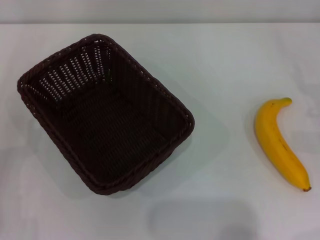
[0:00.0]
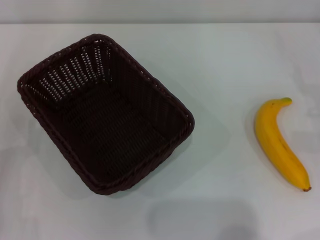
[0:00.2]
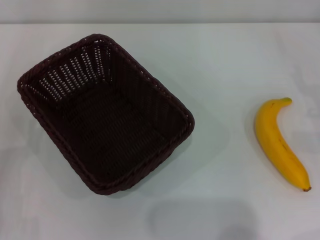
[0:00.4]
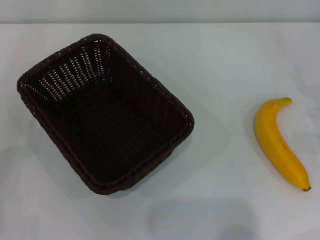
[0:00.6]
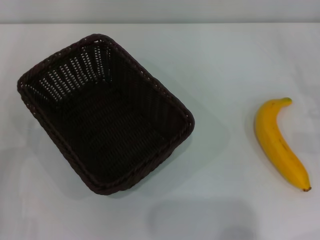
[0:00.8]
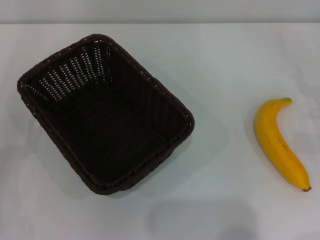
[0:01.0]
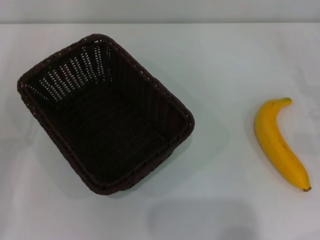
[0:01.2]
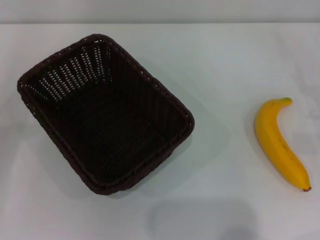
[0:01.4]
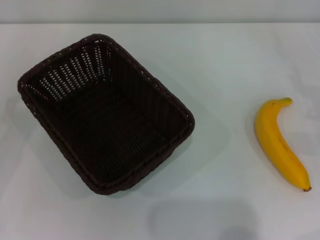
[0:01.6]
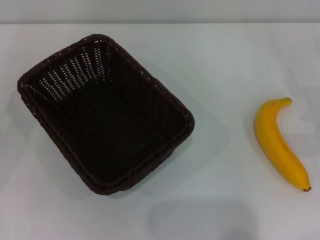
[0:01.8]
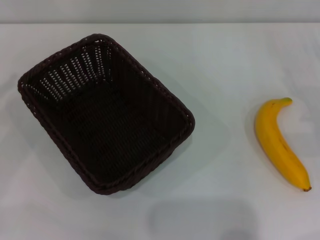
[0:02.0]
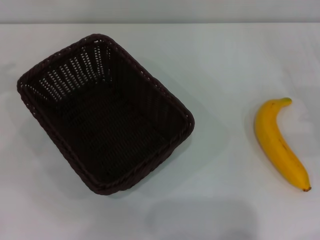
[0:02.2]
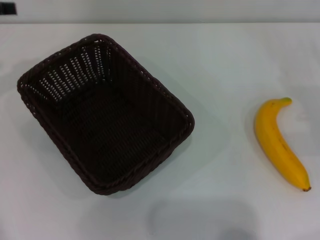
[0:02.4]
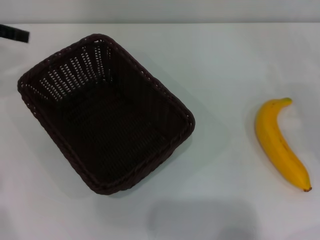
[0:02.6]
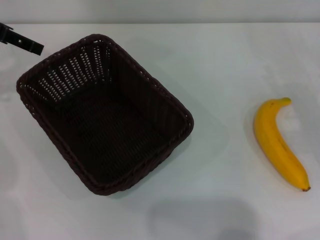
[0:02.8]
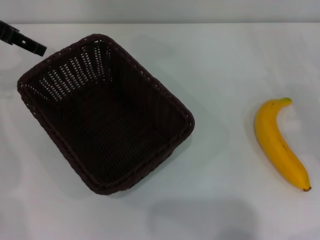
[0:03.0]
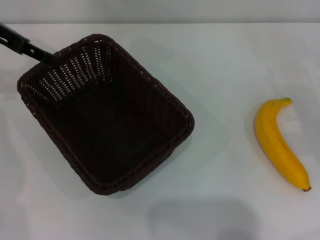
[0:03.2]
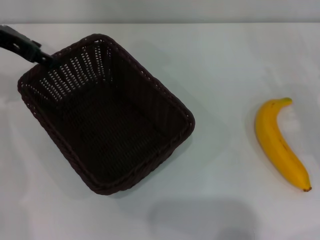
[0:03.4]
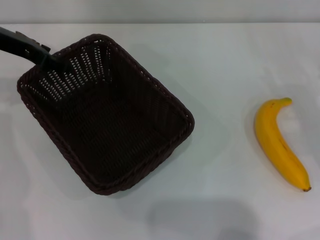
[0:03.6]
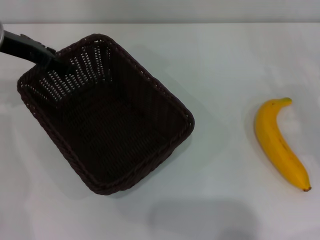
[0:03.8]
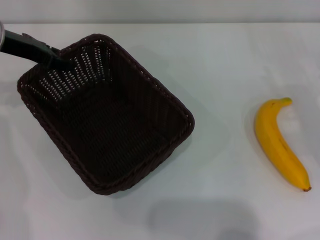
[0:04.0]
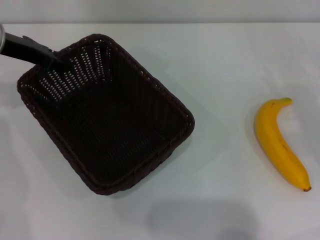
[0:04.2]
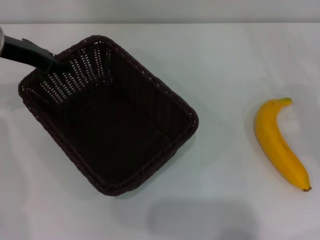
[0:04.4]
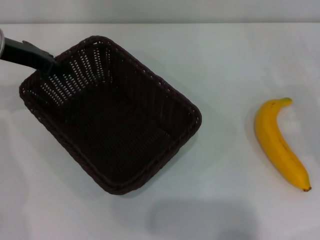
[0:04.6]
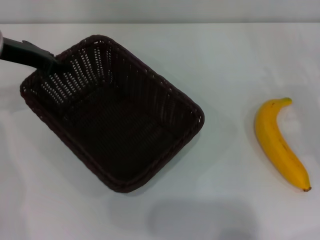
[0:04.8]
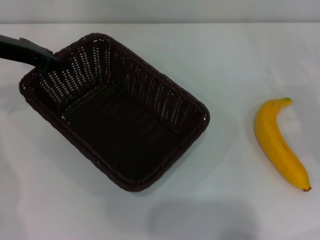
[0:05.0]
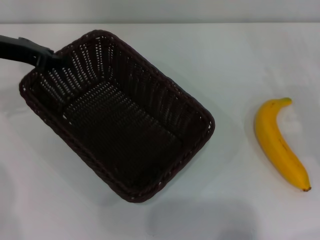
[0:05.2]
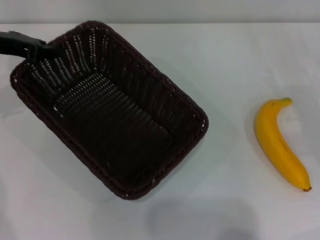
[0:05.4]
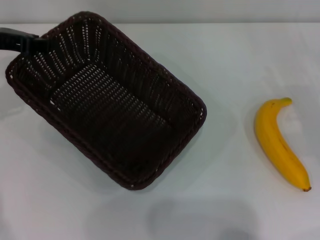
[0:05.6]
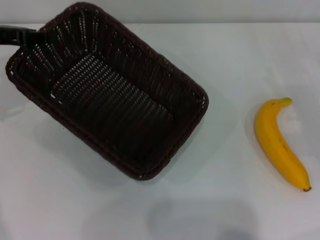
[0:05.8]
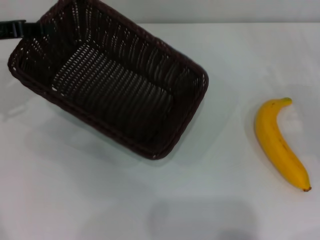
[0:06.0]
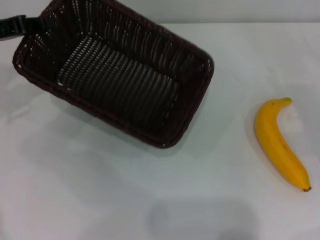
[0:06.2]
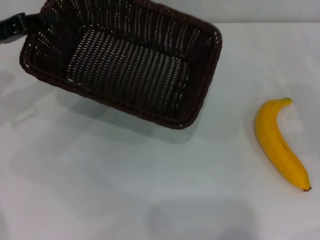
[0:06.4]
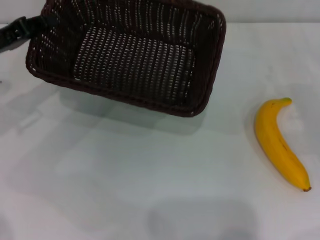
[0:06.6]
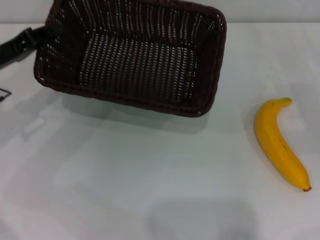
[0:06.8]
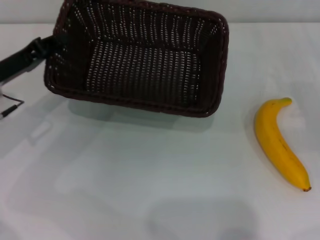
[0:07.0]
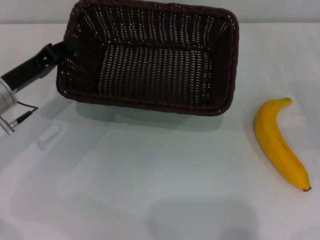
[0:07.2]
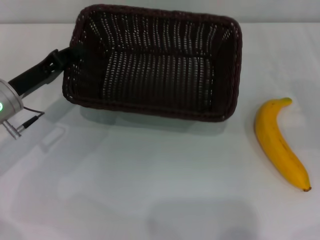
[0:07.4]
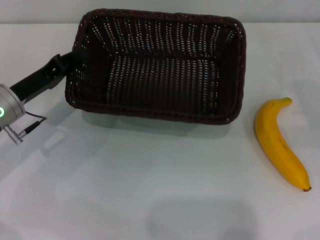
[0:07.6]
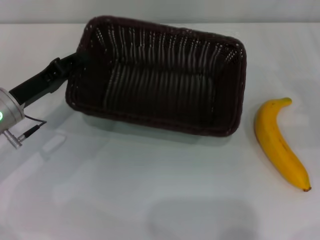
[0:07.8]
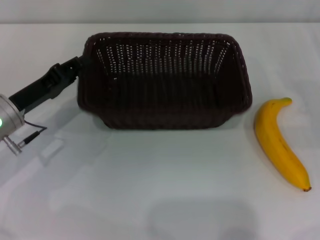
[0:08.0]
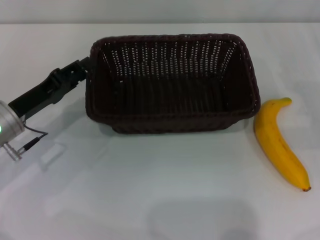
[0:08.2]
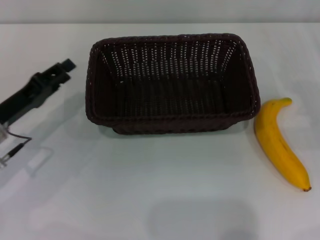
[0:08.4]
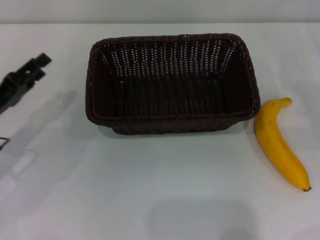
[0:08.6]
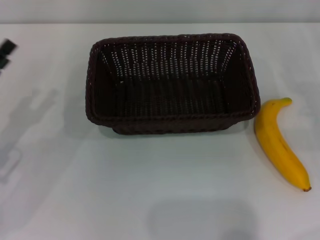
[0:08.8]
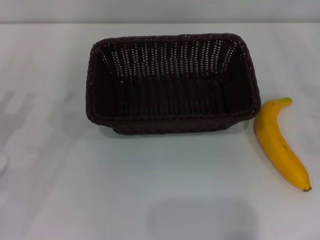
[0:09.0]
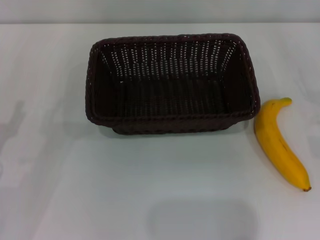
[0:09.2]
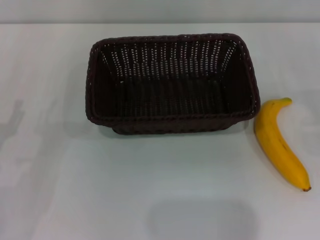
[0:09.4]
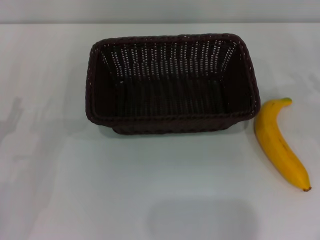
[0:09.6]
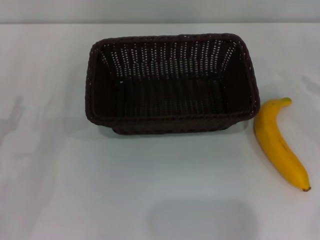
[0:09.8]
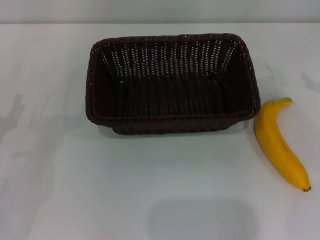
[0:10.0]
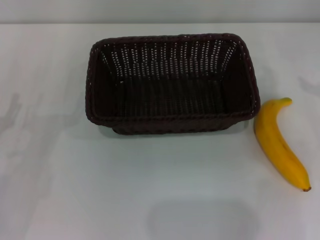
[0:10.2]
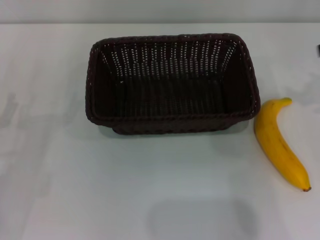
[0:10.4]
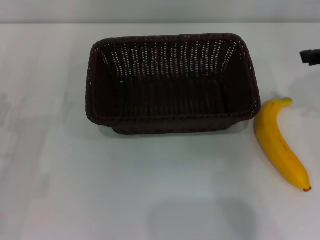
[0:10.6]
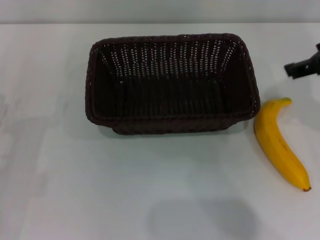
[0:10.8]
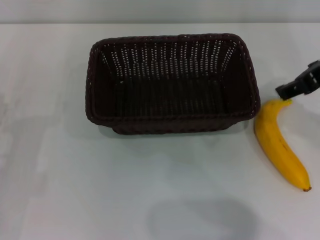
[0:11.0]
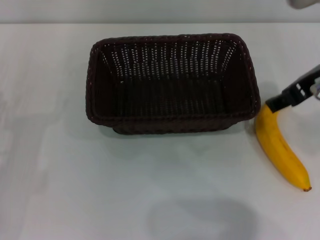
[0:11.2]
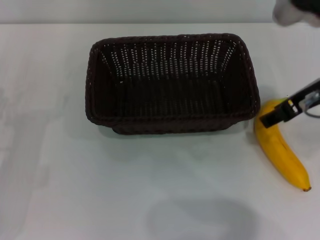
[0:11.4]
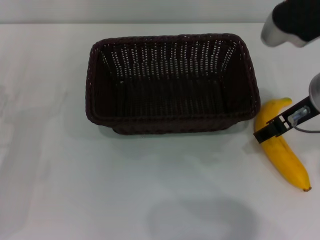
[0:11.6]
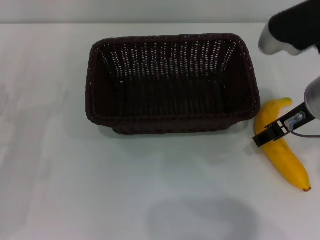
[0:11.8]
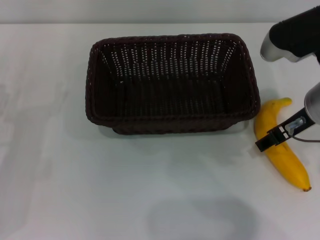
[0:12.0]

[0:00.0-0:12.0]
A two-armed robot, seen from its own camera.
Step, 0:00.0 to 0:05.8: Pick up the dark basket with the left gripper.
Step, 0:06.0 to 0:08.2: Place the dark basket in the center of view with the left gripper.
0:01.6 to 0:03.0: The left gripper moves forward, upward and to the right, some 25 cm.
0:03.0 to 0:04.4: The left gripper shifts some 10 cm downward, and closes its fingers.
0:04.4 to 0:06.0: The left gripper changes place by about 5 cm.
0:06.0 to 0:07.6: The left gripper moves downward, to the right and backward, about 15 cm.
0:07.6 to 0:09.0: The left gripper is displaced backward and to the left by some 10 cm, and opens up.
0:10.4 to 0:12.0: The right gripper shifts approximately 15 cm to the left and downward.

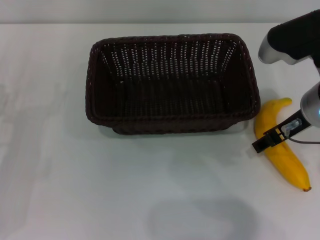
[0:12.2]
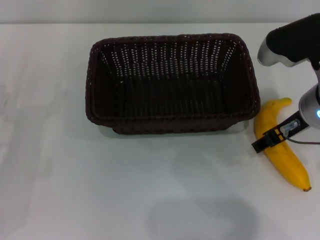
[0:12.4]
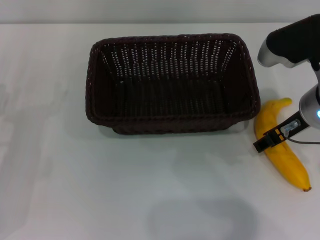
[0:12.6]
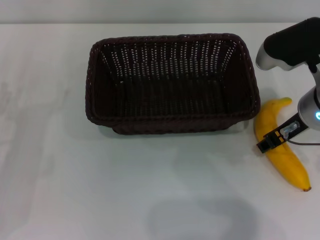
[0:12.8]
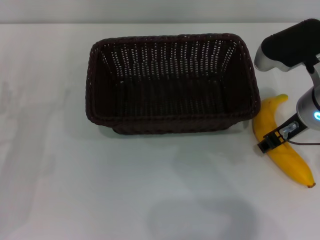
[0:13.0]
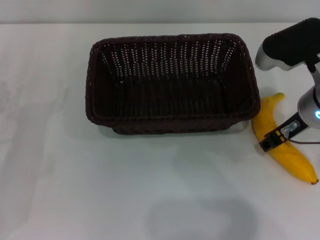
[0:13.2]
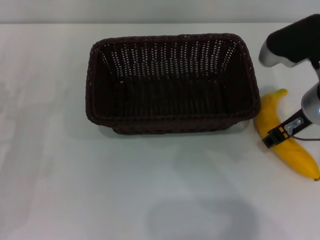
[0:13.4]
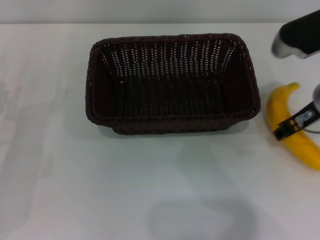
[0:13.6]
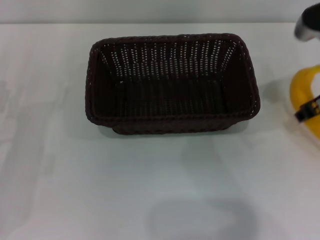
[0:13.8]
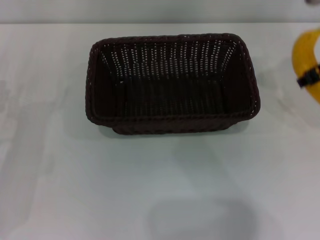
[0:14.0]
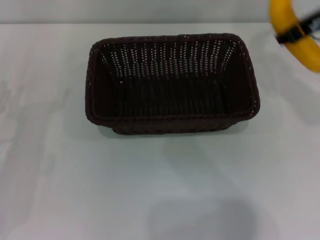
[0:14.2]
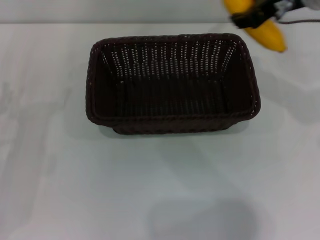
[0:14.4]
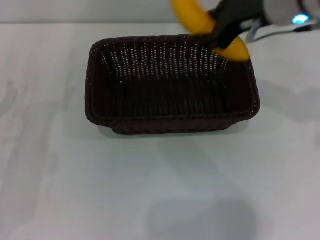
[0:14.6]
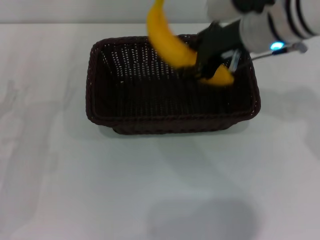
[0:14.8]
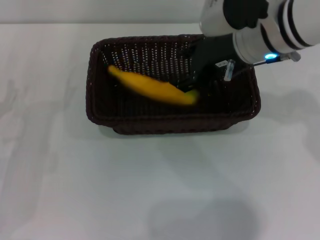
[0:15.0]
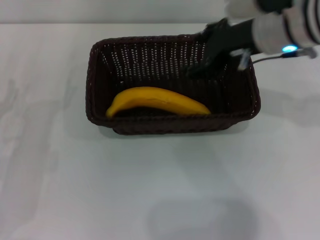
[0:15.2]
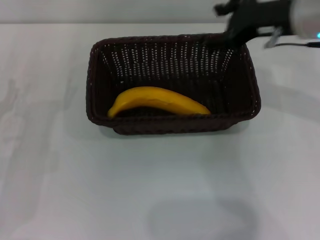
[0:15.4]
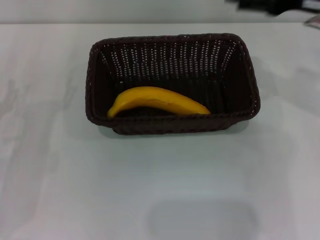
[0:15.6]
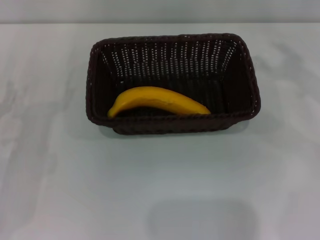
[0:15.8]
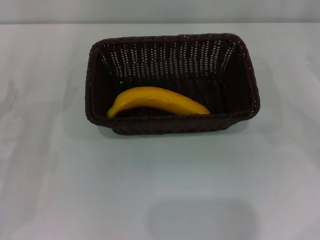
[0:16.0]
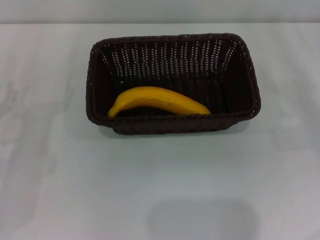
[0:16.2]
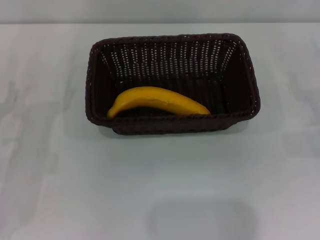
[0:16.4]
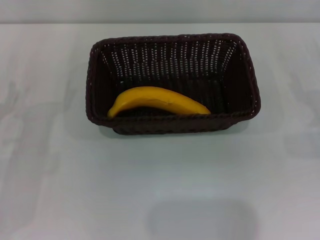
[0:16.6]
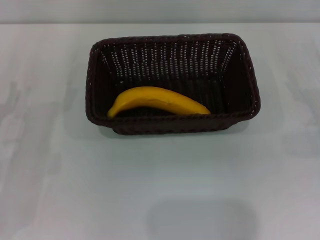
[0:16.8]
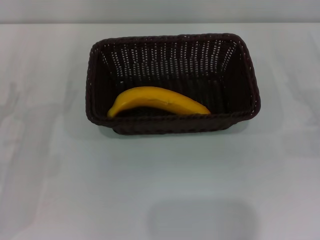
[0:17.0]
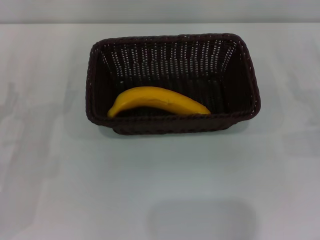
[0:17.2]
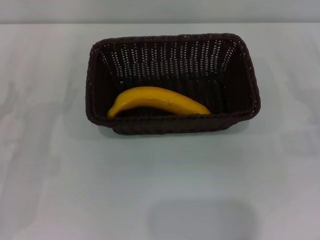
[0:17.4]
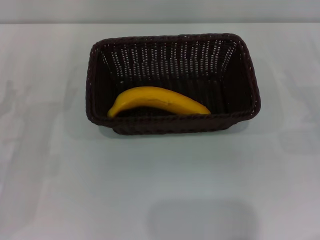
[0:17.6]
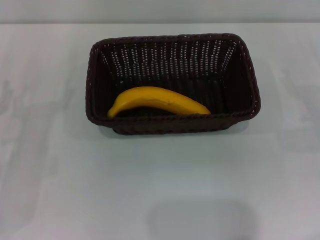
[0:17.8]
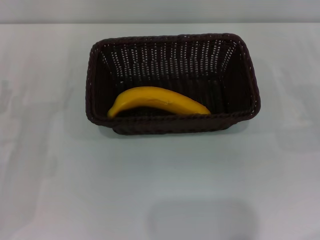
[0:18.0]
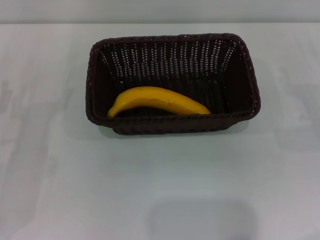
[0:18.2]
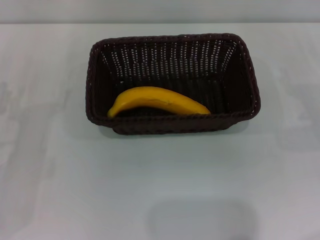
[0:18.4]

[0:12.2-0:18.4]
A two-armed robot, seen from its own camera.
Step, 0:14.2 to 0:15.2: Place the banana into the dark basket with the right gripper.
0:12.2 to 0:13.8: The right gripper moves roughly 5 cm, and closes.
0:13.8 to 0:15.4: The right gripper travels upward by roughly 5 cm, and opens its fingers.
0:15.4 to 0:16.8: The right gripper is displaced to the right and downward by approximately 25 cm.
0:16.8 to 0:18.4: The two grippers keep their place.

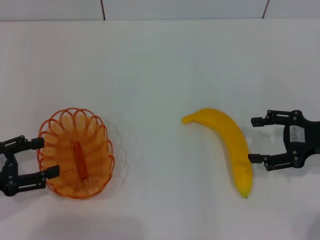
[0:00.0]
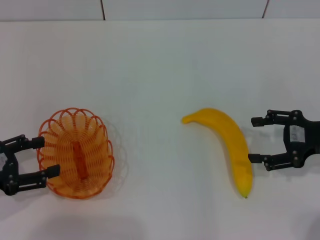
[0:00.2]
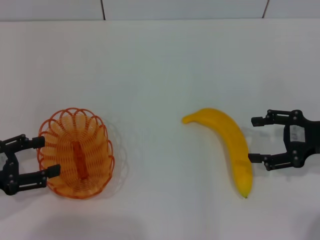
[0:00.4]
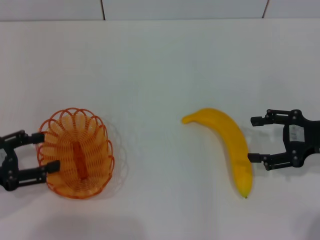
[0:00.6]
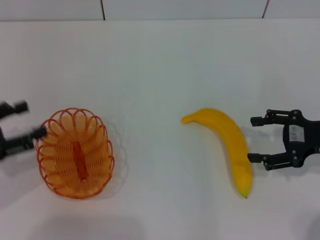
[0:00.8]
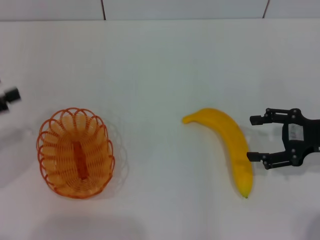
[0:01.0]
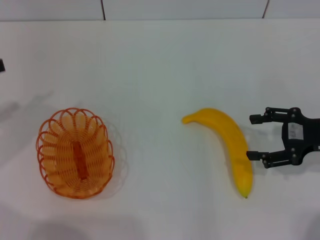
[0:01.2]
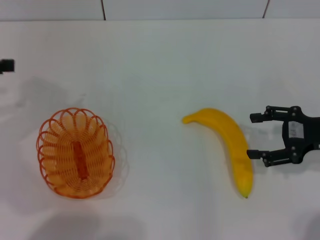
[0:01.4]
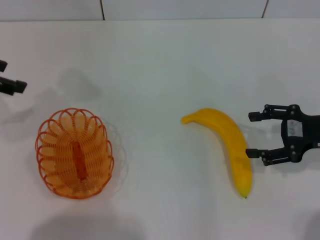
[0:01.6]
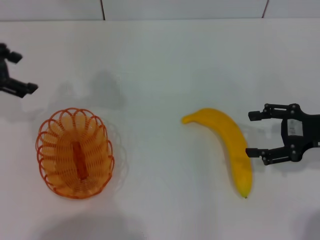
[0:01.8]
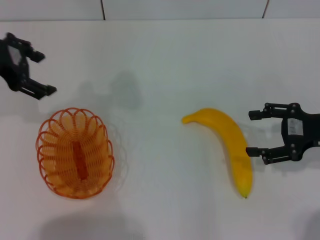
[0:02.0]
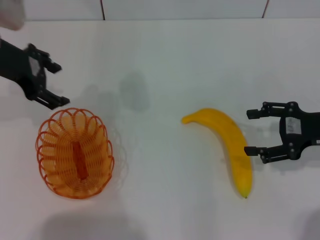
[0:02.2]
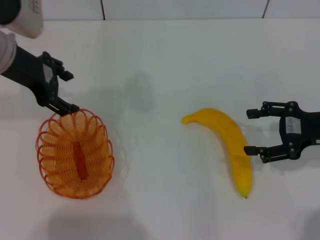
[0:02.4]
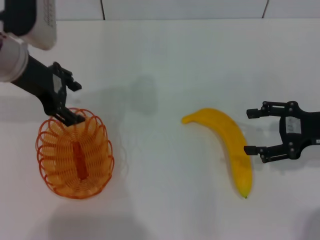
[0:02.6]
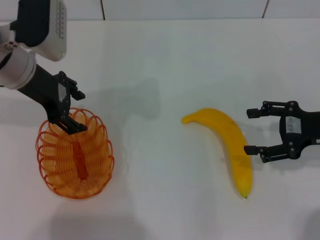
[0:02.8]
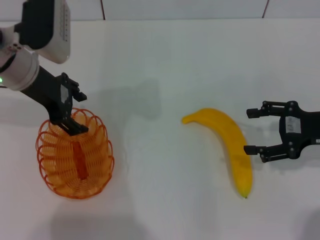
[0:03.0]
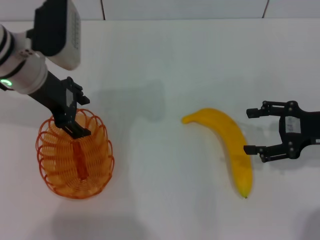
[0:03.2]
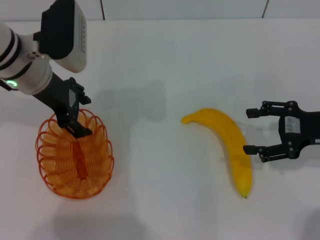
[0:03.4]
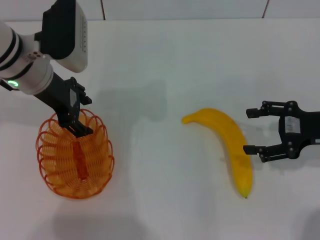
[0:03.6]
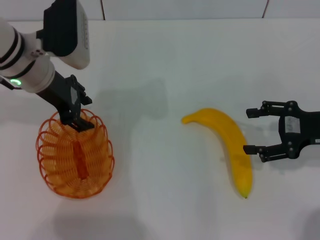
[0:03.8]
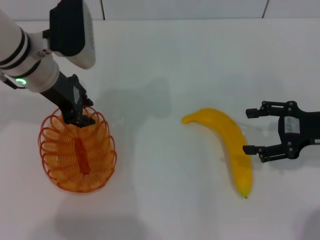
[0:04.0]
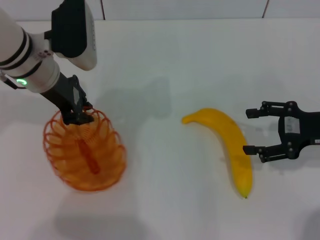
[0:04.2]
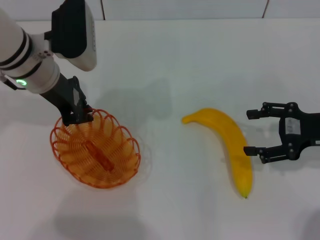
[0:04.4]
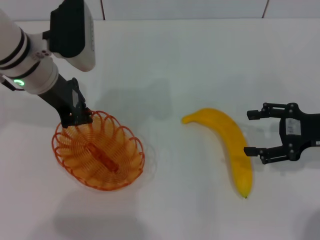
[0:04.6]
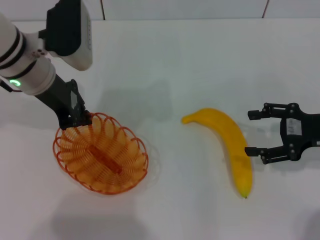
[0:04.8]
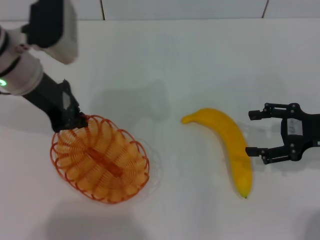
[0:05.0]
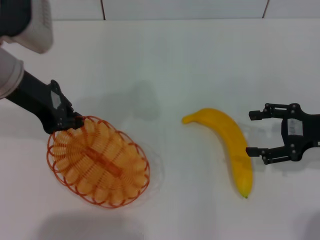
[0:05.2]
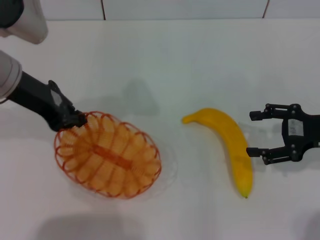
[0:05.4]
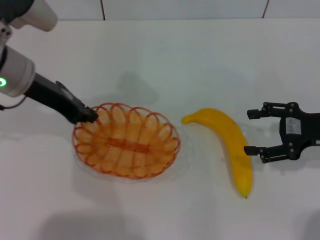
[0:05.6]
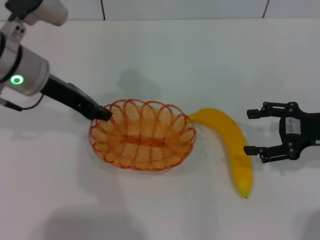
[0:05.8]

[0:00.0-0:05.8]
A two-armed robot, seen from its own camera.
Step, 0:00.0 to 0:05.2: Pick up the basket with the left gripper.
0:00.0 to 0:01.4: The left gripper moves upward and forward, about 15 cm.
0:01.4 to 0:02.8: The left gripper goes about 15 cm to the right.
0:02.8 to 0:04.4: The left gripper closes its fingers.
